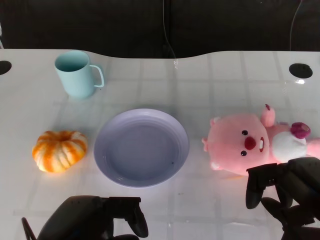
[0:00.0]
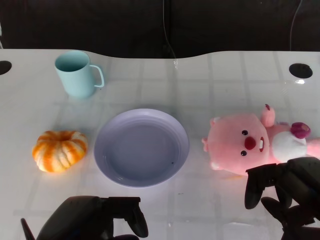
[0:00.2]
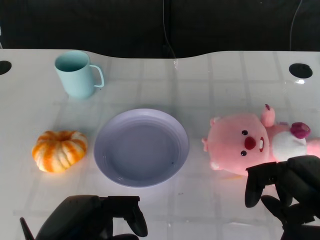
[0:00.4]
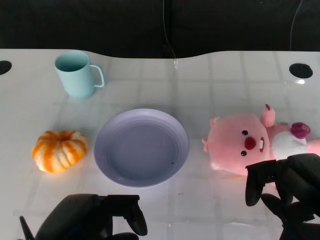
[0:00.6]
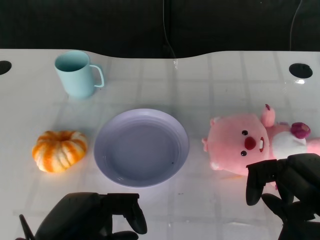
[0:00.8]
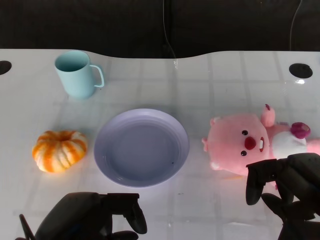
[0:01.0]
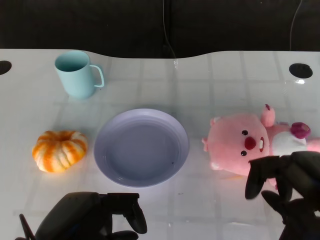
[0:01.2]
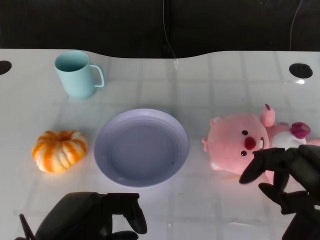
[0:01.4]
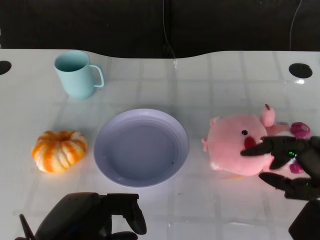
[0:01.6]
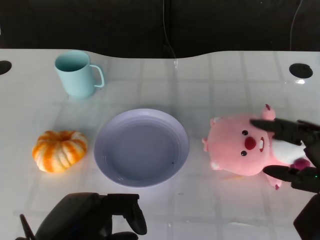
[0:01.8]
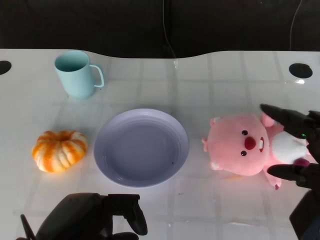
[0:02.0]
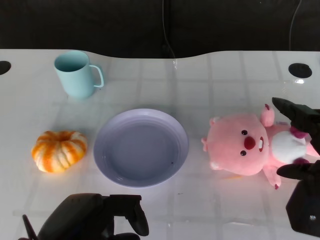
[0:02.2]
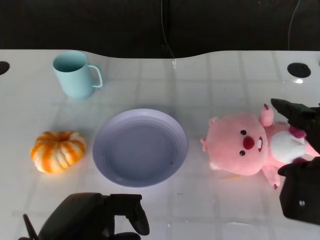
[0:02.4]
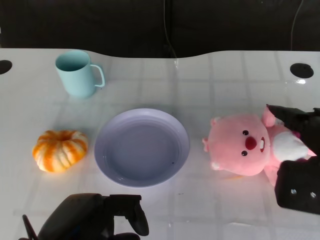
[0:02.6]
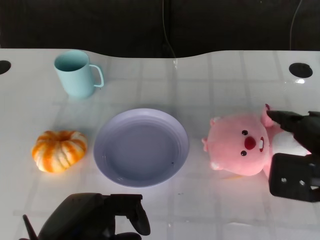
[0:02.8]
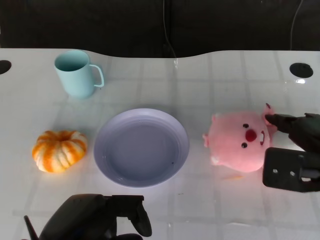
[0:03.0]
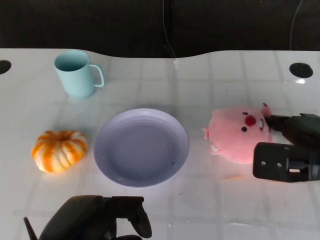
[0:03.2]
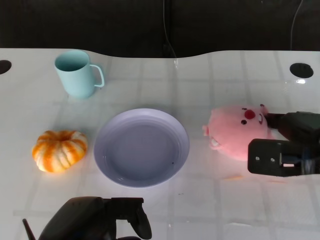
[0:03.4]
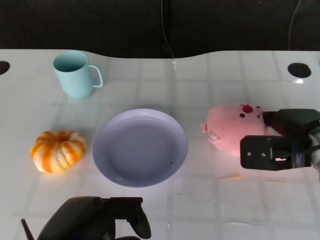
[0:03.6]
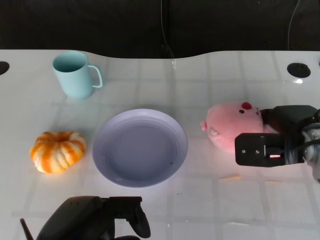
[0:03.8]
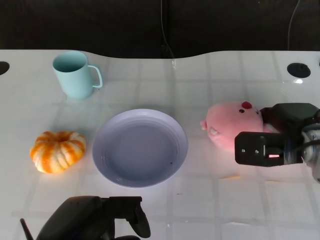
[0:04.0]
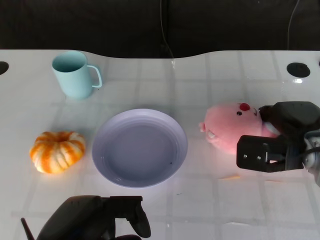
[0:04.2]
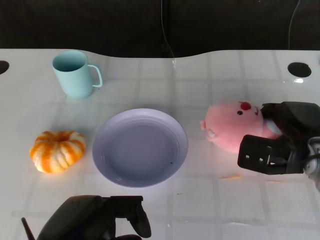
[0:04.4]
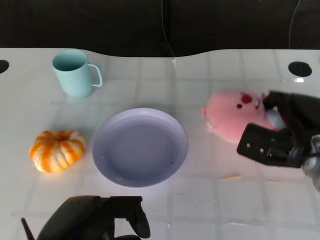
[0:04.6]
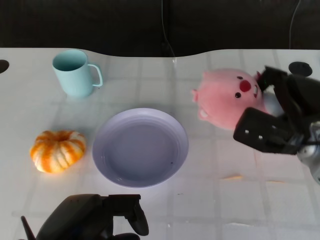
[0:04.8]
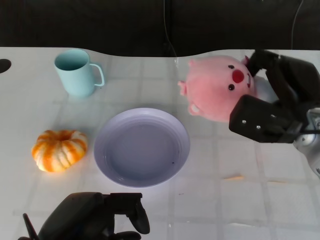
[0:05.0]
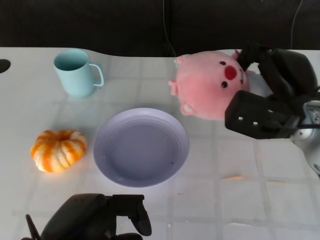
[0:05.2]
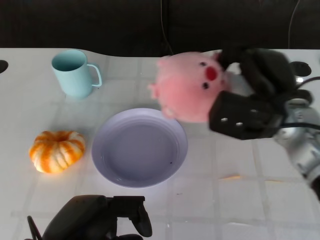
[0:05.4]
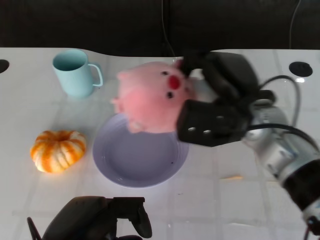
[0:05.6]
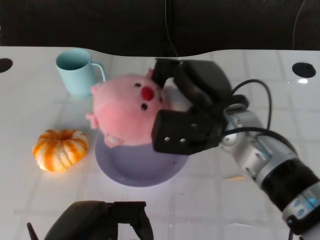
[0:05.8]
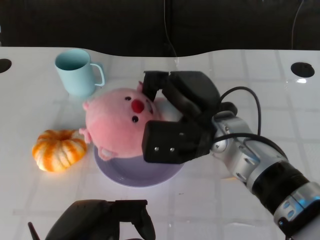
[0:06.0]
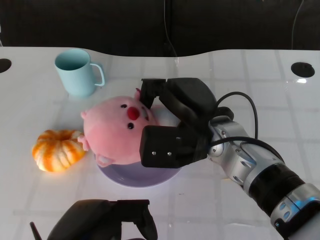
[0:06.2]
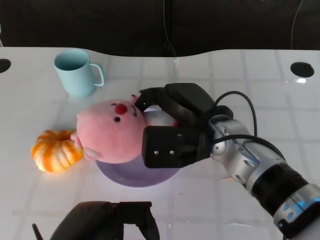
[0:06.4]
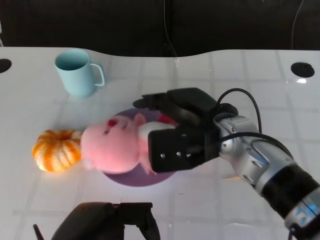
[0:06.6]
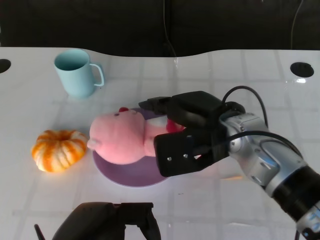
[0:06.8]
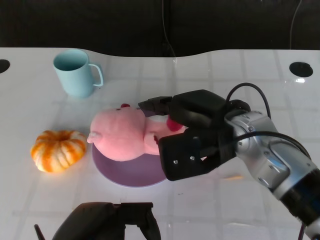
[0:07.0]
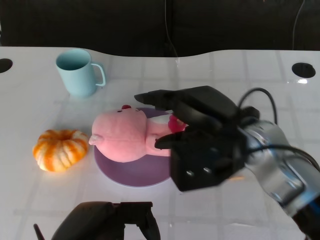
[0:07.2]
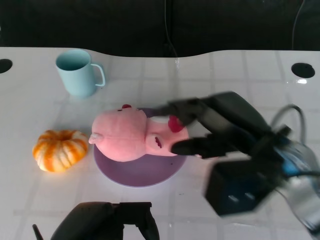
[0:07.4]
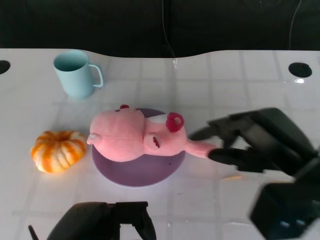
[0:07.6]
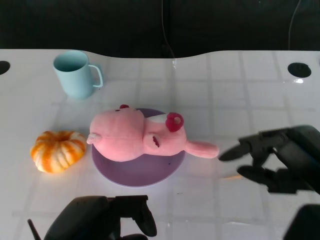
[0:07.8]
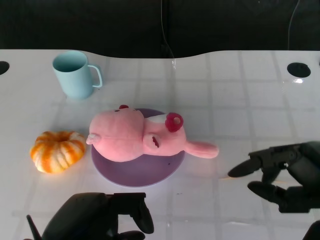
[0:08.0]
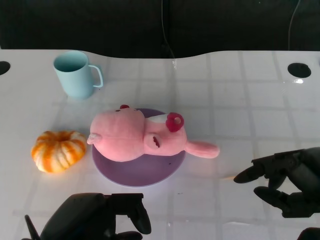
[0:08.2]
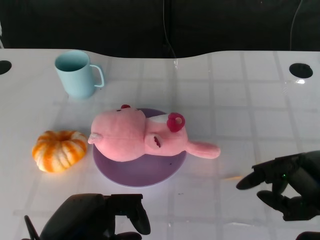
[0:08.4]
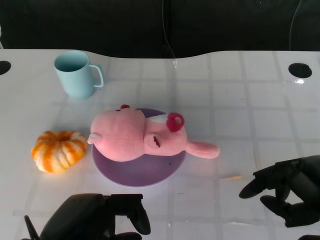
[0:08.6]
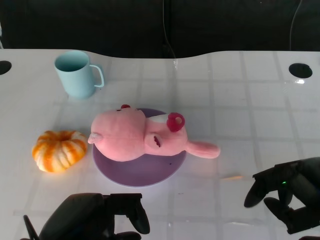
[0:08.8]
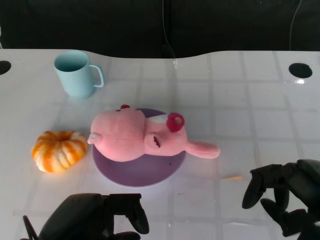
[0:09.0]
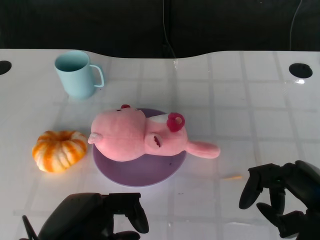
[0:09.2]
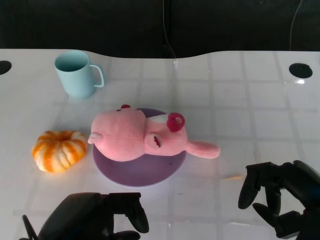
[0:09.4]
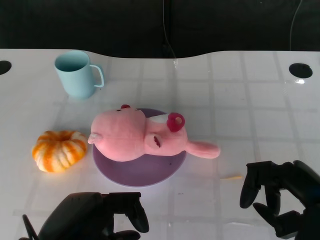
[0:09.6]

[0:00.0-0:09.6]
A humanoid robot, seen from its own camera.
Task of the whole recording: Pick up the doll on the other side of the plate and place it into the plate.
Step, 0:01.4 to 0:04.6: Grasp the pink doll with the right gripper.
Step, 0:04.8 to 0:07.0: Place the pink doll into the plate with the right gripper.
0:01.6 to 0:03.2: The right hand shifts approximately 10 cm forward.
0:04.8 to 0:06.4: The right hand is displaced to the left by about 15 cm.
0:06.4 to 0:08.0: The right hand heads to the right and backward, covering roughly 20 cm.
0:08.0 to 0:09.6: The hands stay close to where they were, moving slightly.

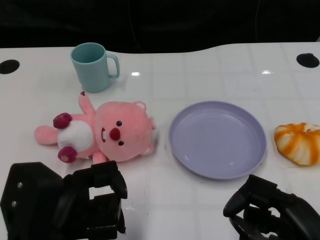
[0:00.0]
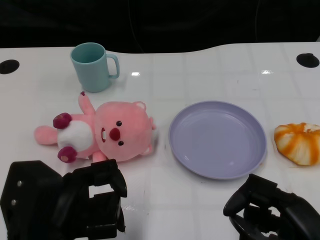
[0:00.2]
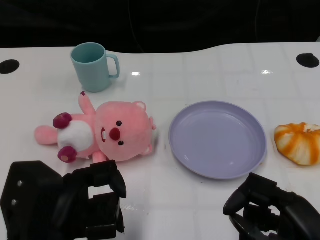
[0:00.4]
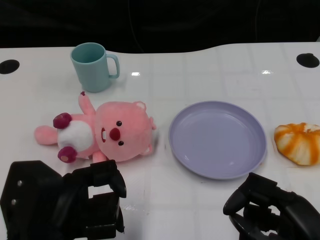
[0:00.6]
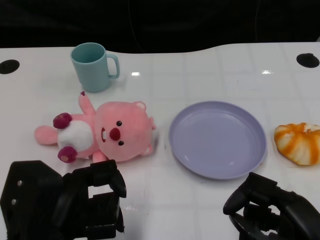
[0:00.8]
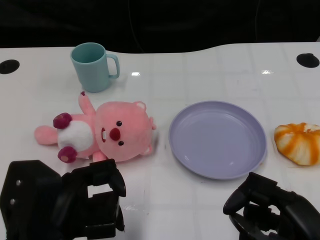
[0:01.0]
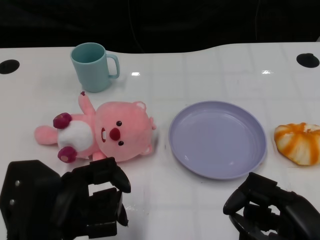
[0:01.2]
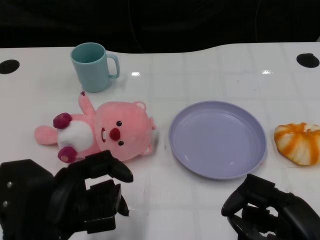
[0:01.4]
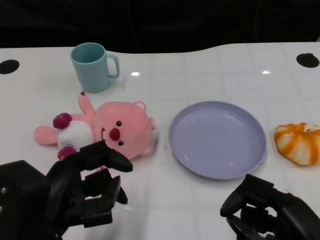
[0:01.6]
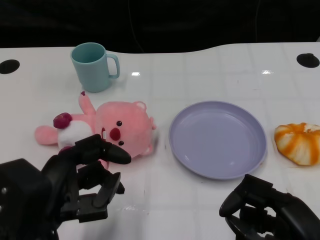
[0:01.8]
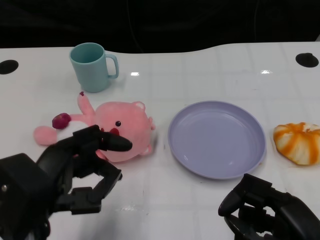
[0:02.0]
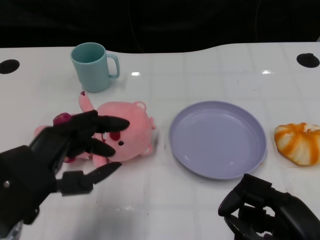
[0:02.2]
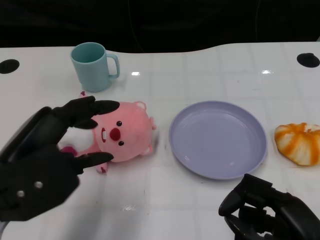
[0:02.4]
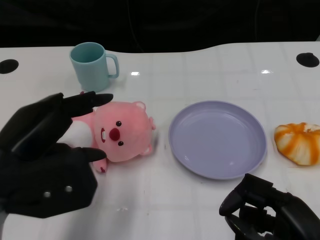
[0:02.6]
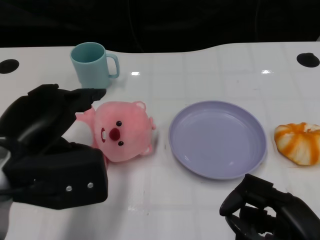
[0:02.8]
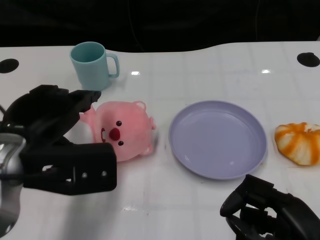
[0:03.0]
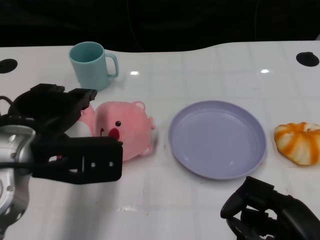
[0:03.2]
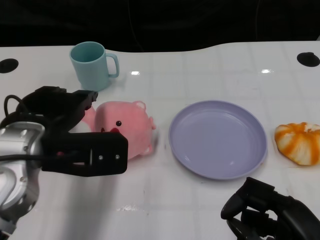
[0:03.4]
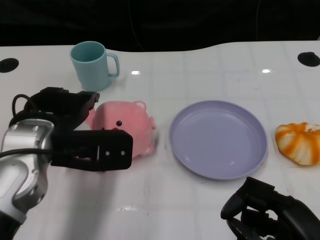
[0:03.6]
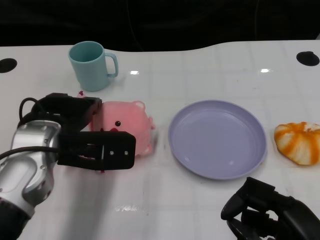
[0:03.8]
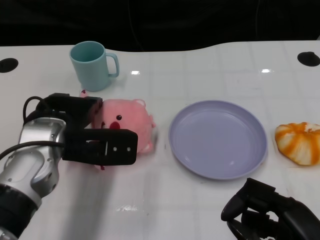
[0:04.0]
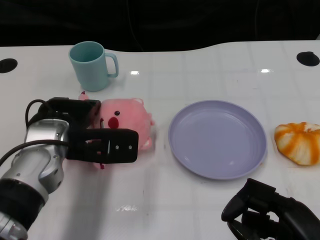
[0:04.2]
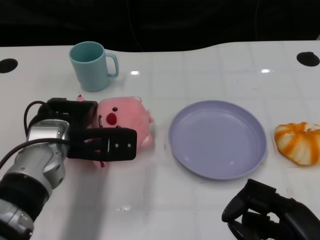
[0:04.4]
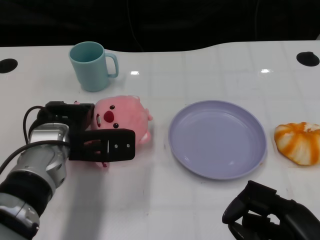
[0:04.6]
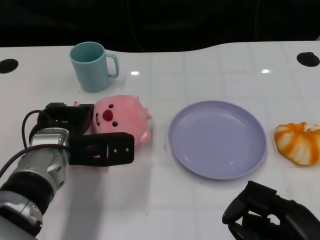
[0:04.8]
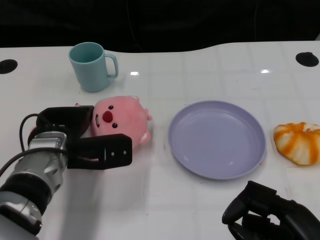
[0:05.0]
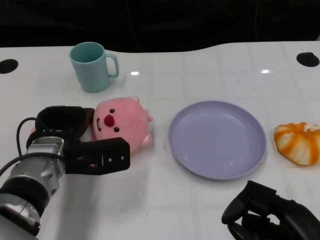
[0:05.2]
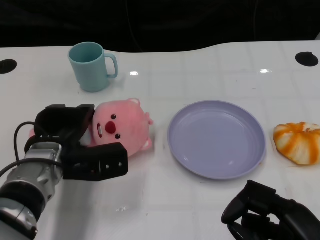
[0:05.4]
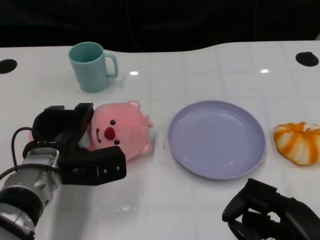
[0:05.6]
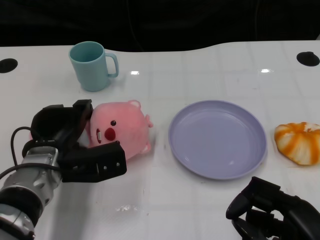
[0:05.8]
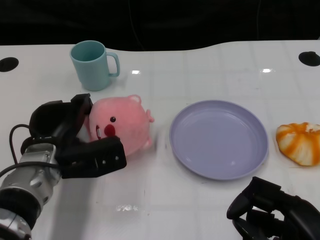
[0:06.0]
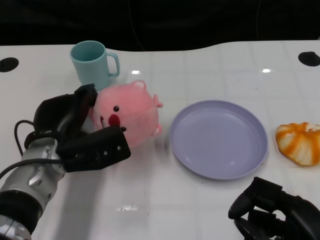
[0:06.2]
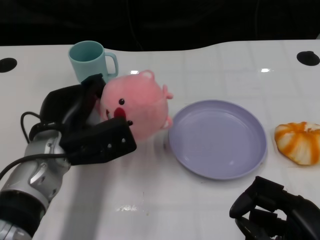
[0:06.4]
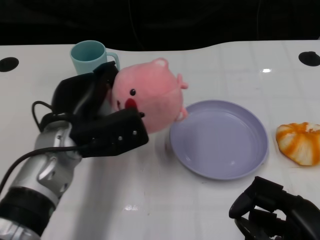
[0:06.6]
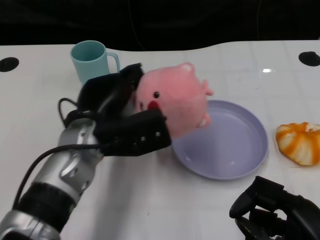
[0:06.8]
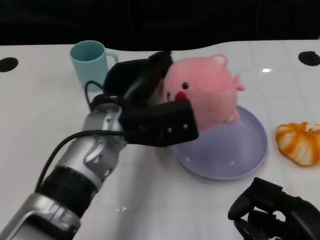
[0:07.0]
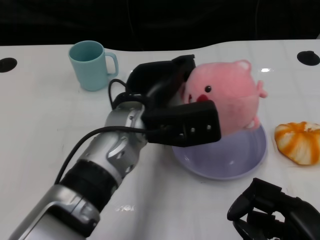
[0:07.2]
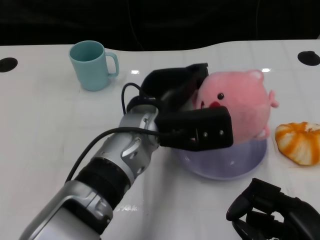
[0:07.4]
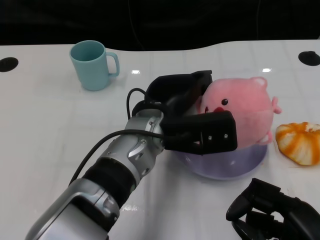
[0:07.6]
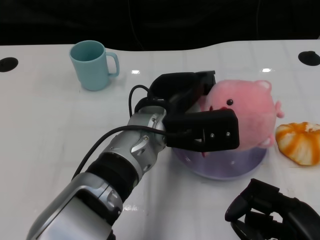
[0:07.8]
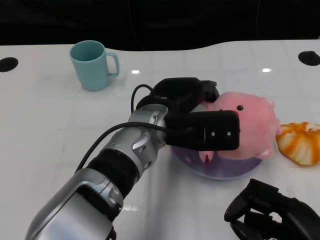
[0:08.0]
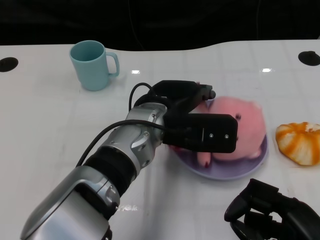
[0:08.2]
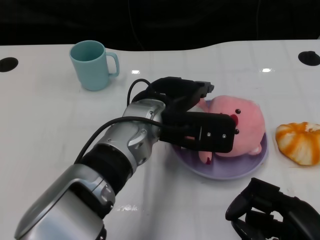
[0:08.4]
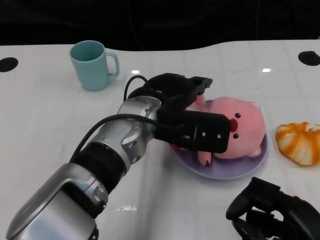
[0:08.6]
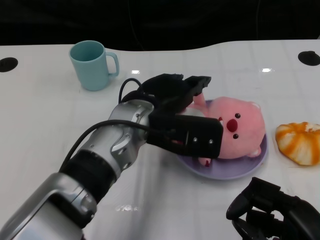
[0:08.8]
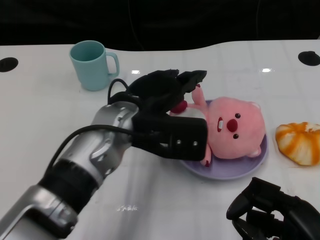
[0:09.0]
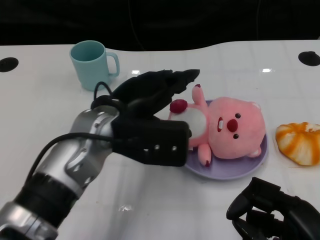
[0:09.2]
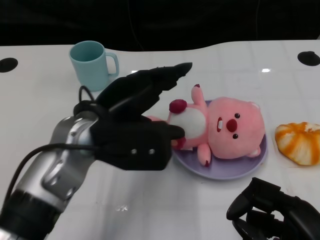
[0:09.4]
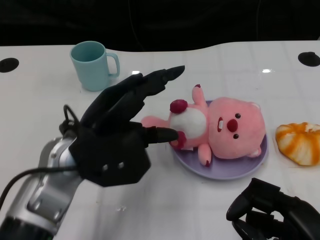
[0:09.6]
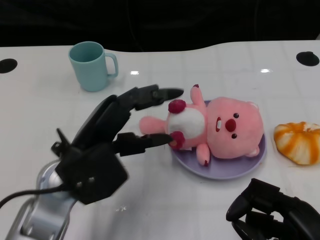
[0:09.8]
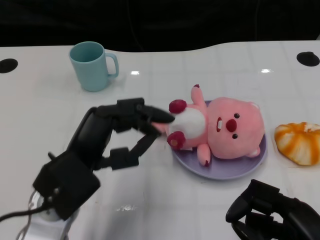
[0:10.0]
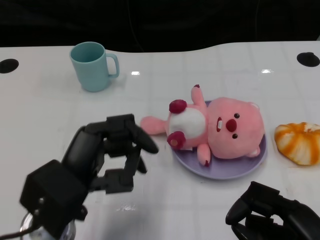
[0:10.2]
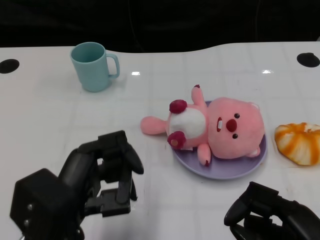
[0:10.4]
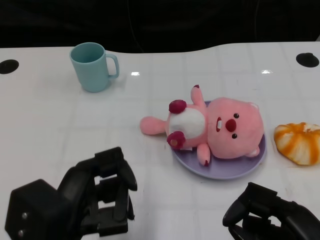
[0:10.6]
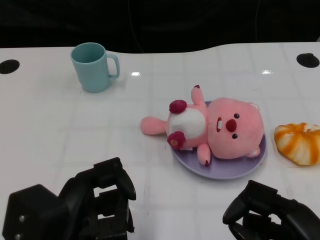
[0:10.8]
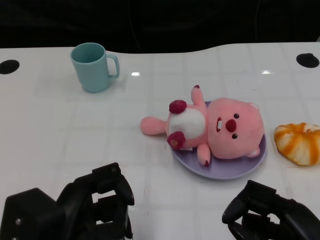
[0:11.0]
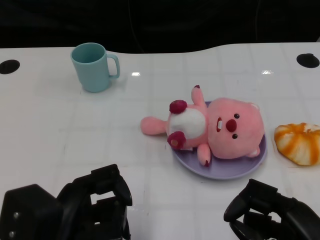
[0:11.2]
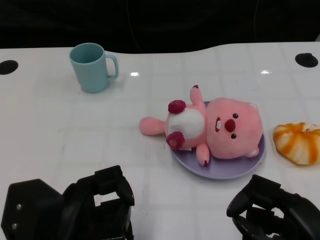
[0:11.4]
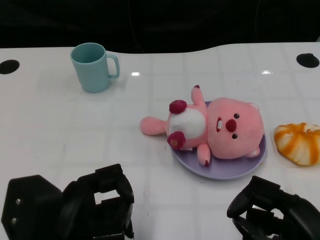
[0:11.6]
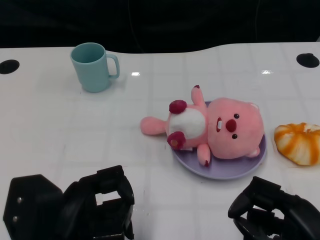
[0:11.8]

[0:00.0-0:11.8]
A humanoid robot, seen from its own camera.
Task of the whole recording: Pick up the doll on one side of the plate and place it into the plate.
Step, 0:01.0 to 0:06.2: Grasp the pink doll with the left gripper.
Step, 0:06.4 to 0:08.8: Place the pink doll into the plate with the left gripper.
0:01.4 to 0:03.0: The left hand travels forward and upward by about 10 cm.
0:03.0 to 0:04.4: The left hand is displaced forward and downward by about 10 cm.
0:04.4 to 0:06.0: The left hand shifts by some 5 cm.
0:06.0 to 0:07.4: The left hand heads to the right and upward, covering about 15 cm.
0:08.8 to 0:10.4: The left hand goes roughly 20 cm backward and to the left.
